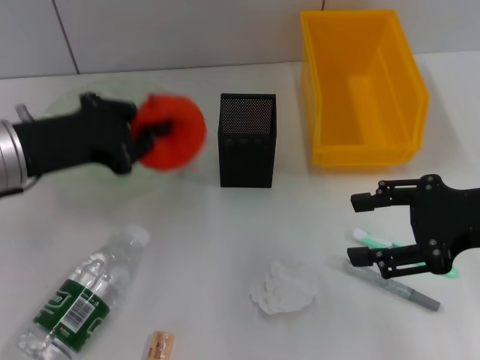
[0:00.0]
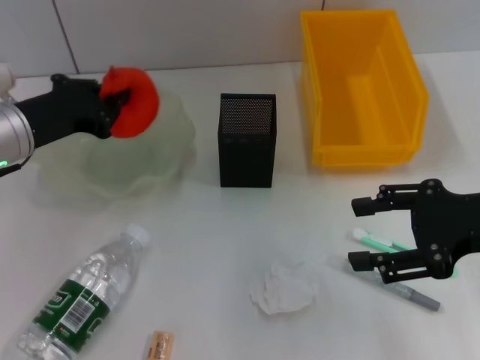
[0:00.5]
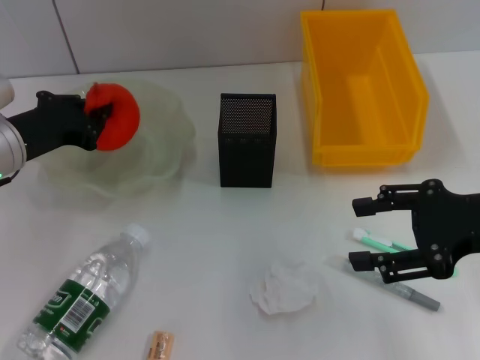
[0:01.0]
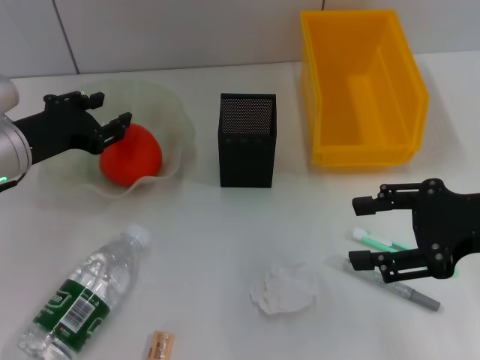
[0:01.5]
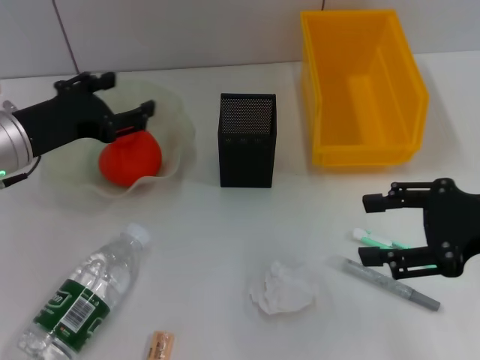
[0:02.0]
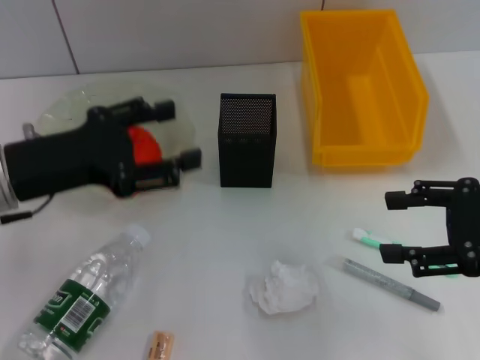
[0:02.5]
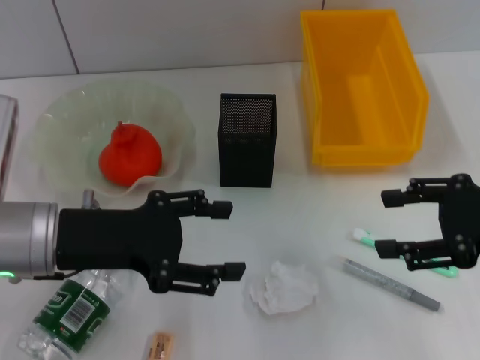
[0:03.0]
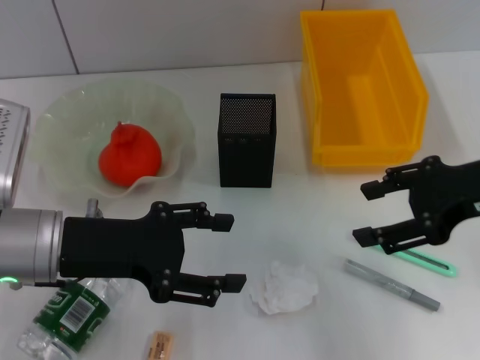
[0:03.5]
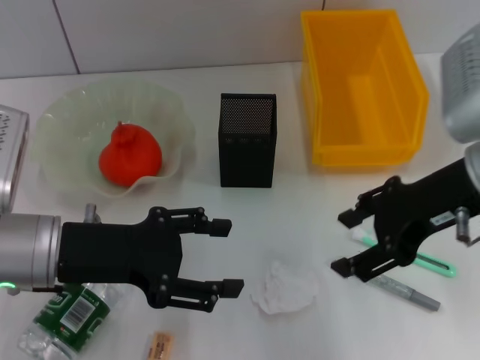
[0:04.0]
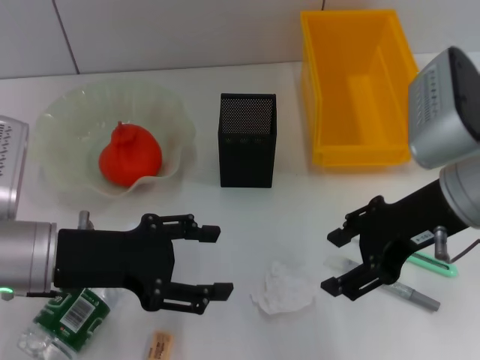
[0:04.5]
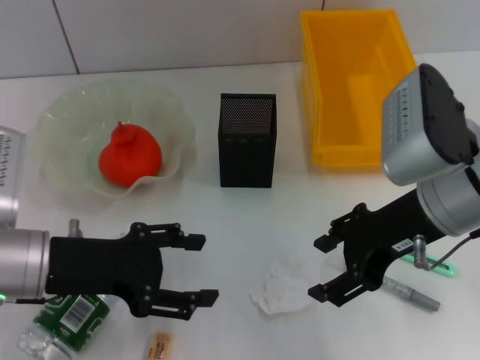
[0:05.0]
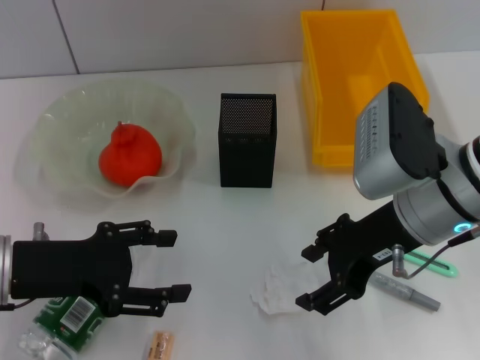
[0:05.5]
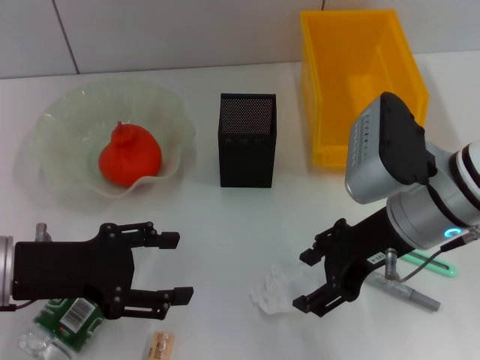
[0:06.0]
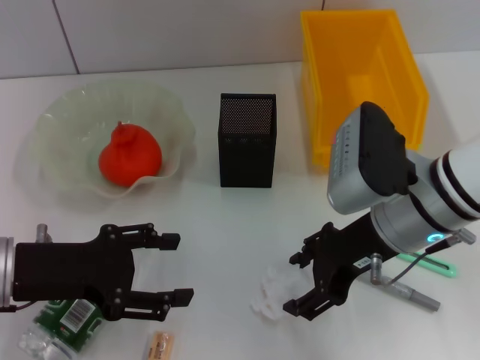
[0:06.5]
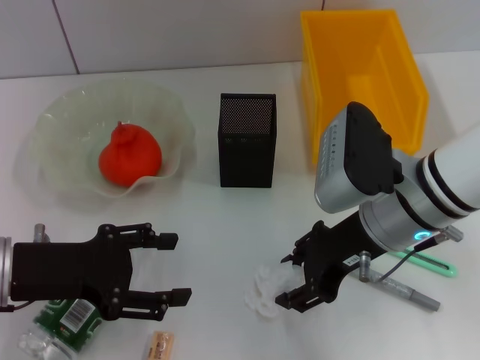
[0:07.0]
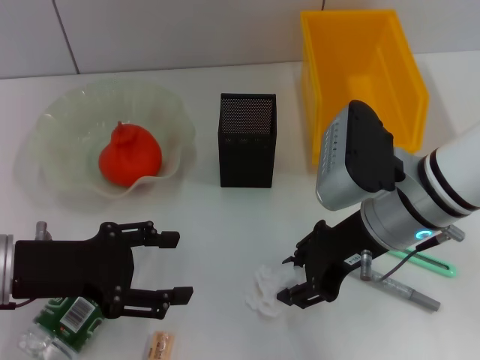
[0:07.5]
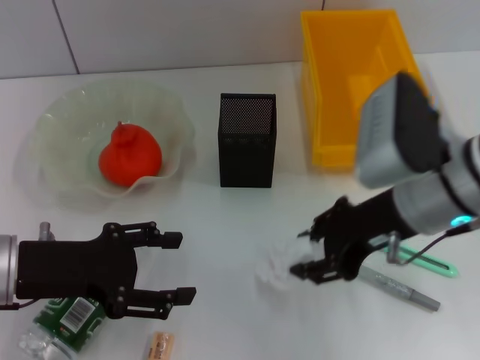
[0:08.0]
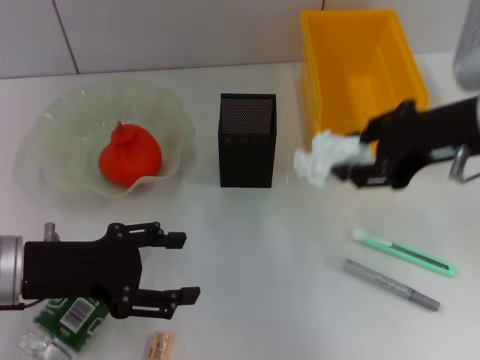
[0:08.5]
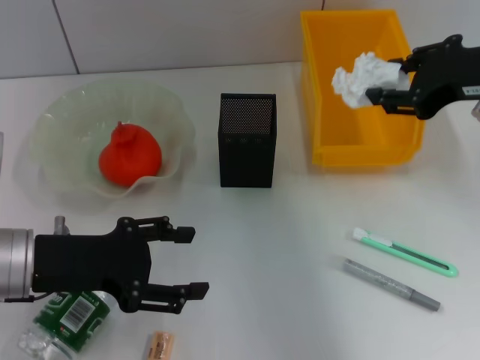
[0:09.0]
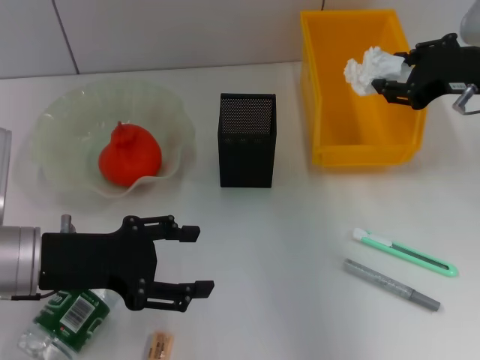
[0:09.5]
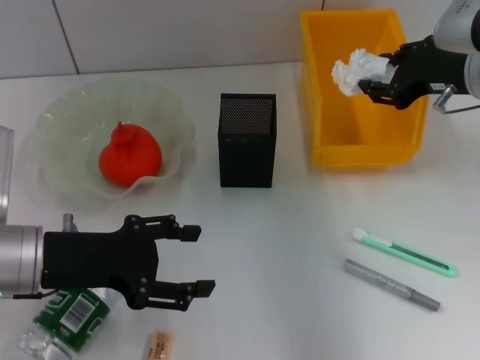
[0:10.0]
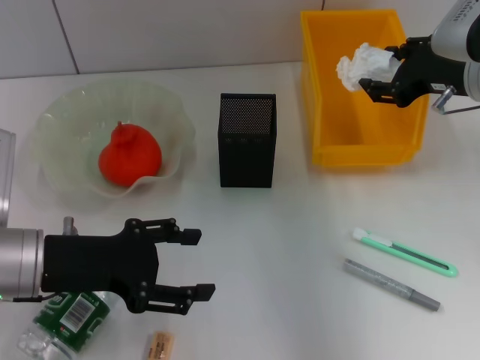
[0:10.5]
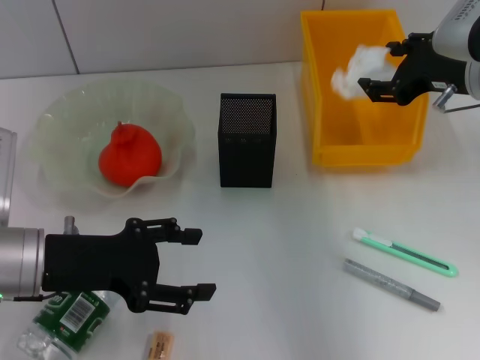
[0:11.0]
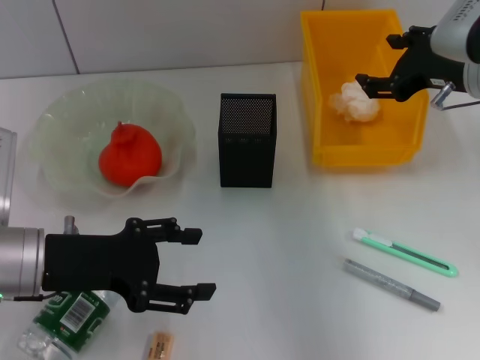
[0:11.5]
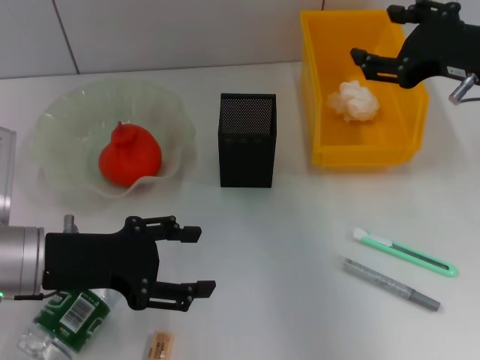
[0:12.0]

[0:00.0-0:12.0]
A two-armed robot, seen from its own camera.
Step, 0:00.0 to 0:01.5: Place the orange into the fruit bowl with the left hand.
Step, 0:02.0 to 0:07.0: Grab the paper ball with the right hand.
Step, 0:07.5 to 0:11.0: Place the paper ball into the trash can with the right hand.
0:00.0 to 0:02.0: The left gripper changes place by roughly 5 cm, and opens its fingers.
0:02.0 to 0:04.0: The left gripper moves backward, about 10 cm. Meanwhile the right gripper moves to the left, about 10 cm.
0:04.0 to 0:06.0: The right gripper is displaced downward by roughly 5 cm.
0:06.0 to 0:08.0: The right gripper closes its fingers.
0:08.0 to 0:10.0: The right gripper is displaced to the right and forward by roughly 10 cm.
0:10.0 to 0:12.0: The right gripper travels backward by approximately 5 cm, and opens its fingers.

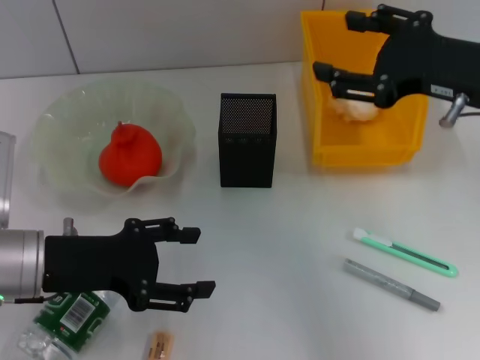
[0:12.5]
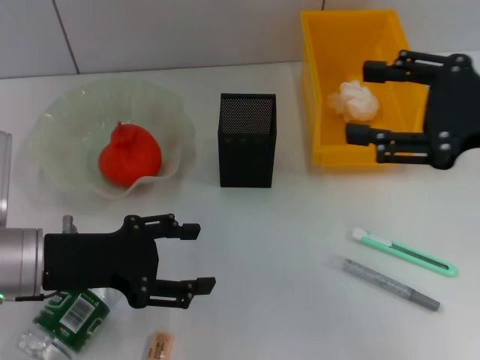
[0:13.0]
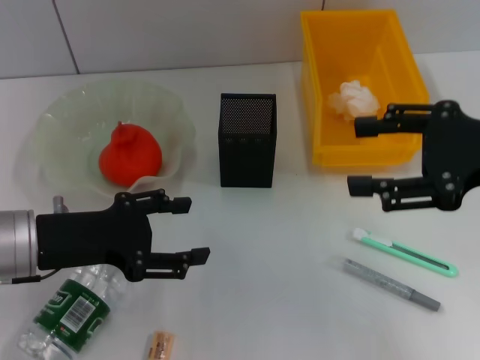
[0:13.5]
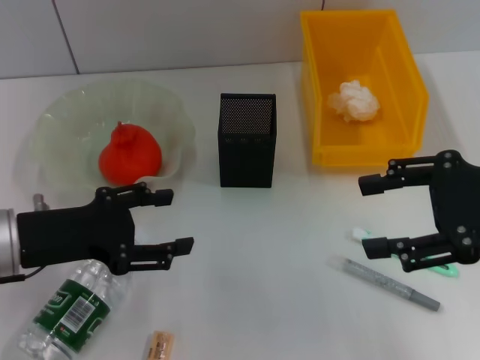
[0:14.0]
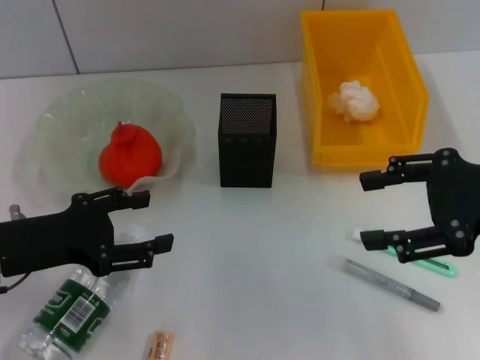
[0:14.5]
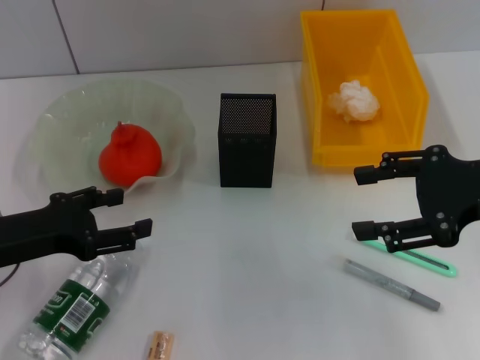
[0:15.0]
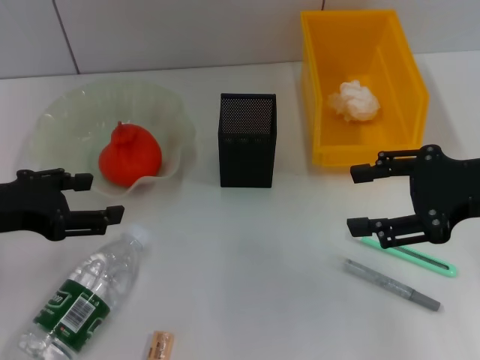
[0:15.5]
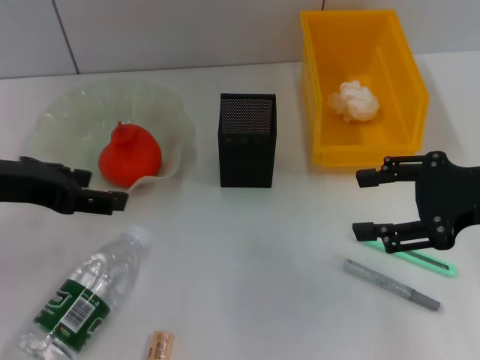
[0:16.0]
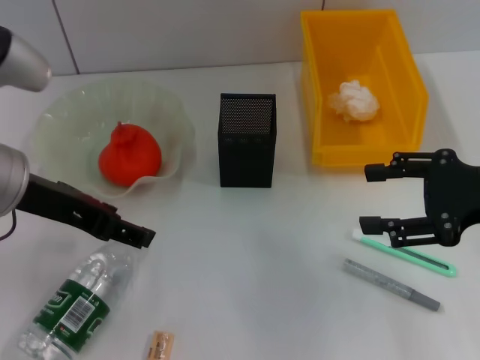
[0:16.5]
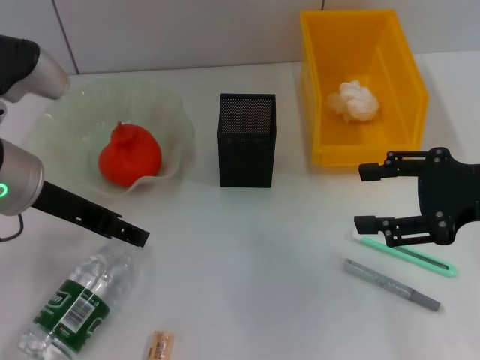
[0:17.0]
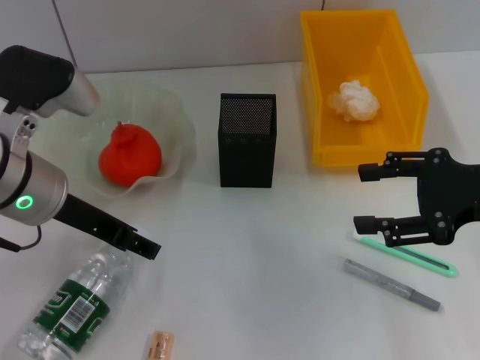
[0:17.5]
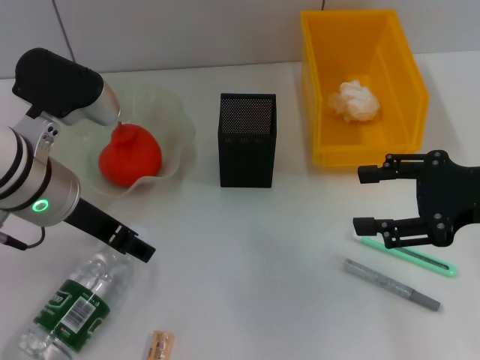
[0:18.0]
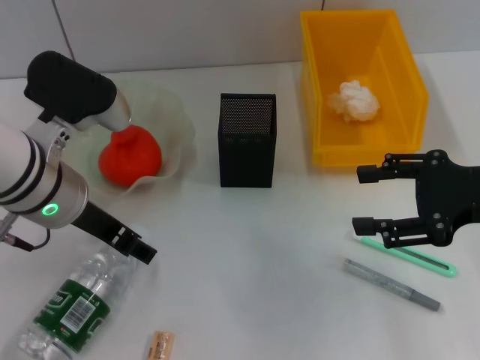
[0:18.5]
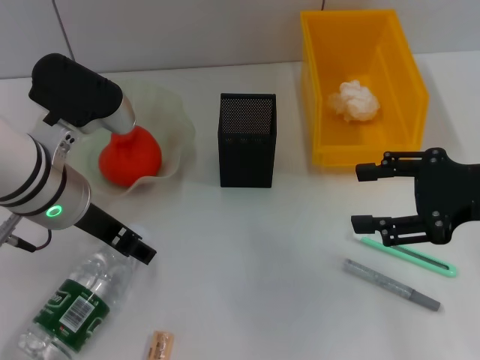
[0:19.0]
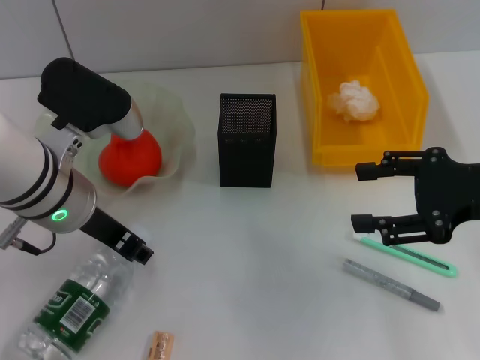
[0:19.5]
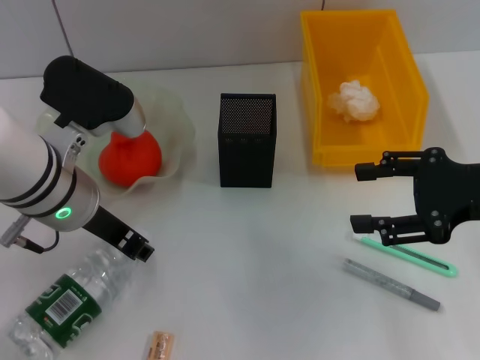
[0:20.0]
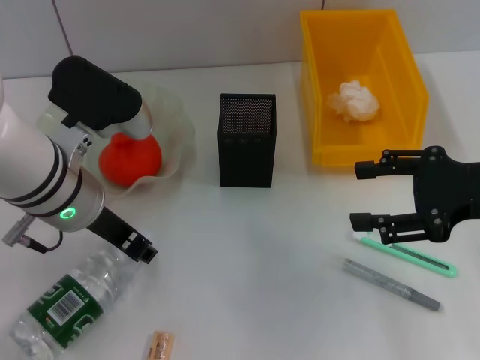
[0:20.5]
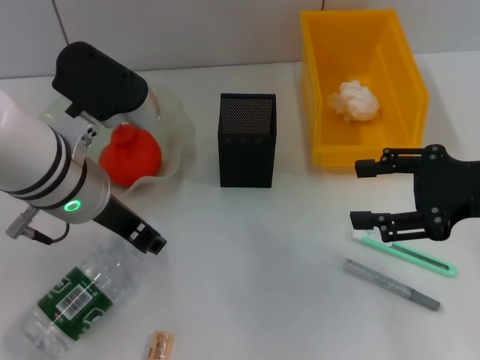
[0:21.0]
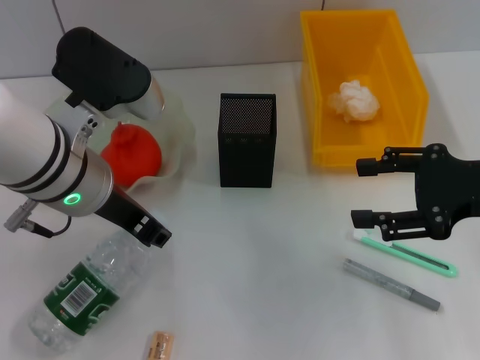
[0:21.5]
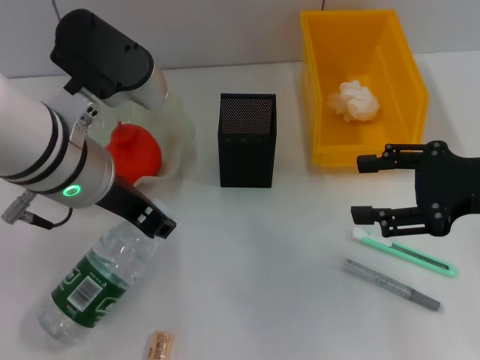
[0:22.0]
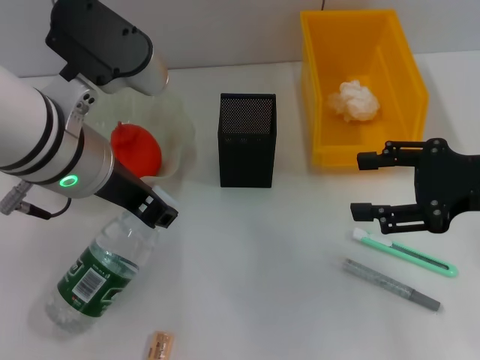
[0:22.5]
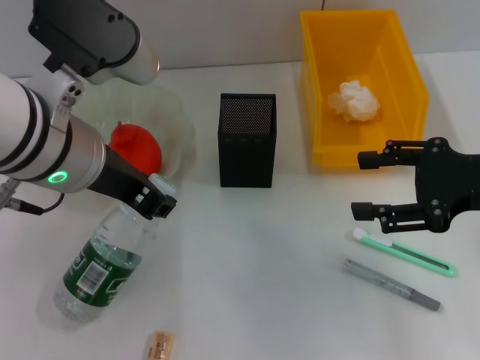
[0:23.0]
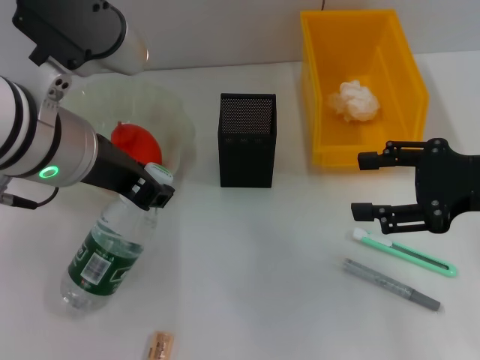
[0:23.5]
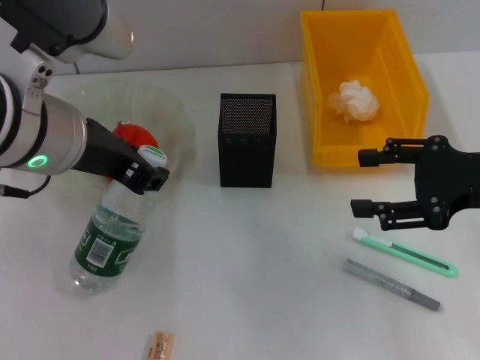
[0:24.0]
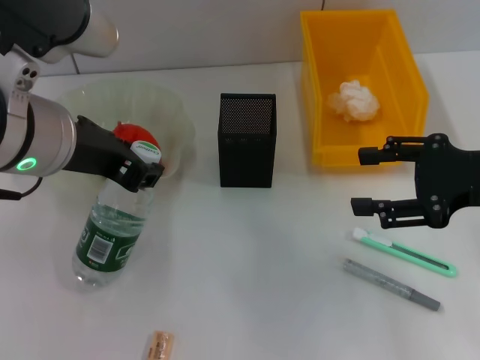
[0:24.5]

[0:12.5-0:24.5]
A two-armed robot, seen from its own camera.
Step, 0:12.5 to 0:20.0: Grab the water bottle with the left hand.
0:12.5 to 0:14.5: The right gripper heads backward, covering some 5 cm.
0:14.5 to 0:16.5: The left gripper travels upward and to the right by some 10 cm.
0:16.5 to 0:18.5: The left gripper changes place by roughly 5 cm.
0:18.5 to 0:20.5: The left gripper closes.
0:20.5 to 0:22.5: The left gripper goes roughly 5 cm upward.
0:22.5 to 0:24.5: The grippers move only a little.

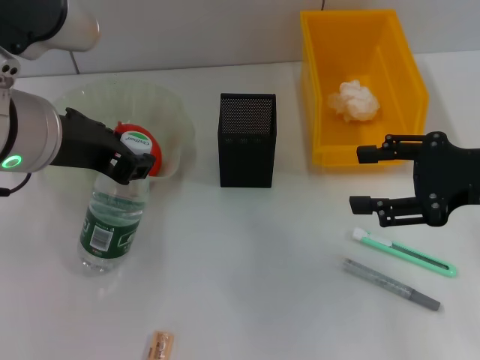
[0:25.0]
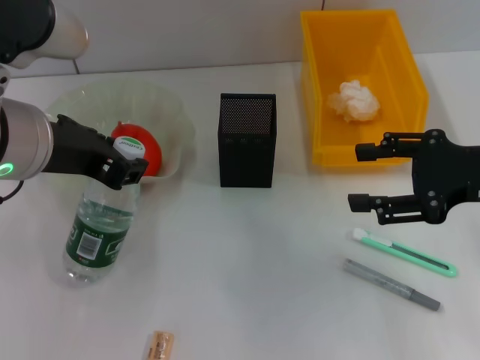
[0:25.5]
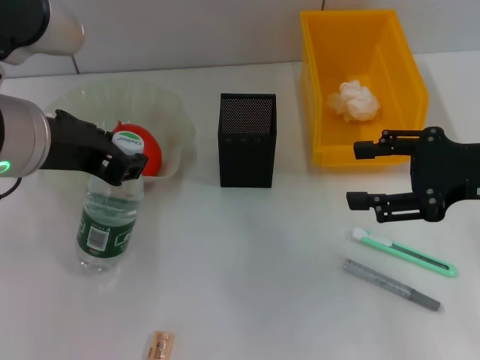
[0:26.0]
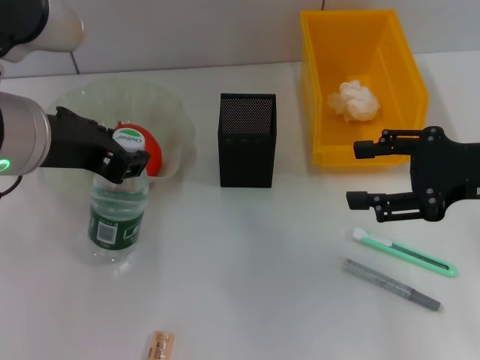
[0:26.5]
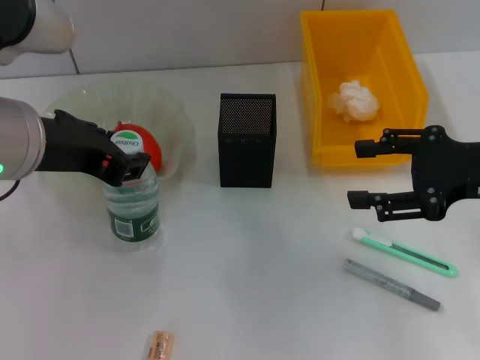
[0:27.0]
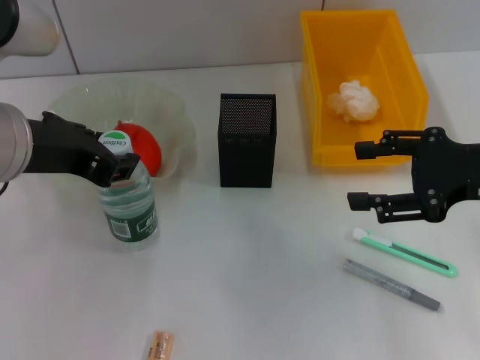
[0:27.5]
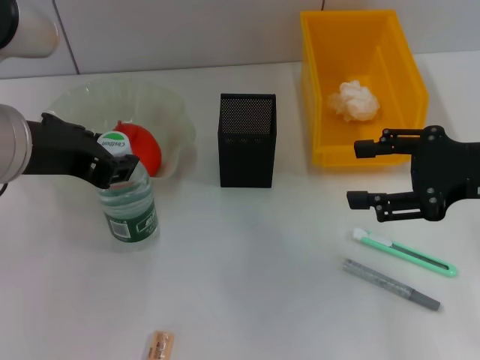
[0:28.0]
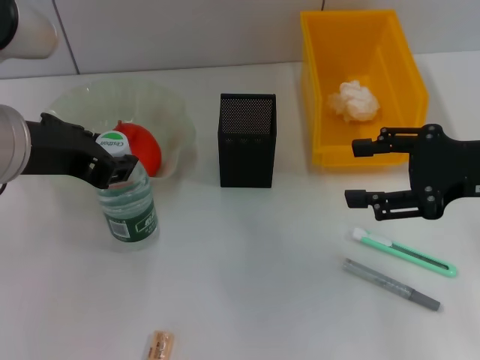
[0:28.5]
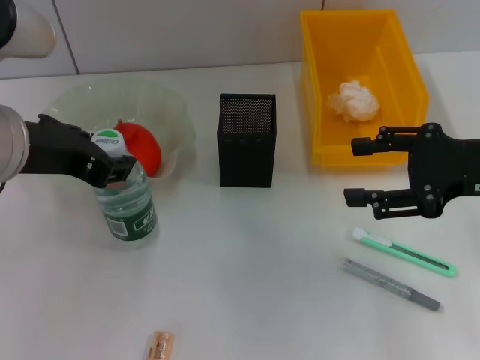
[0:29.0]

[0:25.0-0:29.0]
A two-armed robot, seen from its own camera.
0:25.0 to 0:27.0: The two grippers keep their place.
0:27.0 to 0:29.0: The grippers move only a little.
